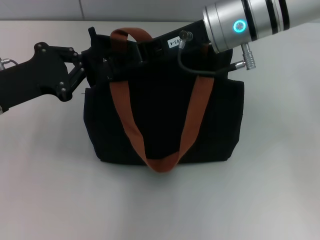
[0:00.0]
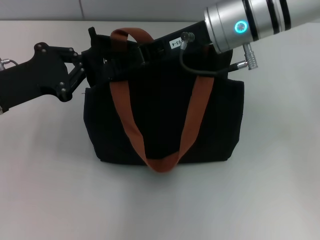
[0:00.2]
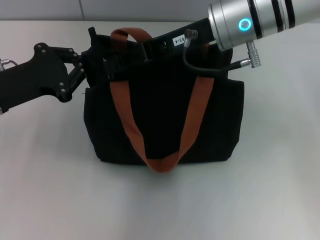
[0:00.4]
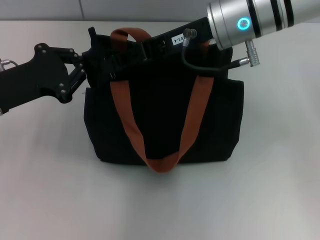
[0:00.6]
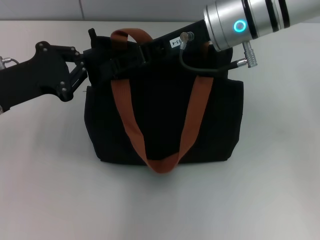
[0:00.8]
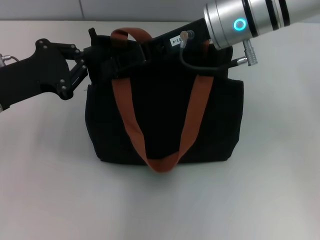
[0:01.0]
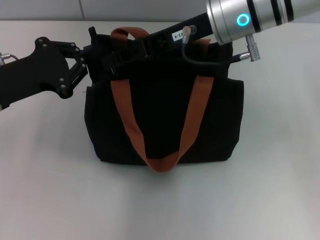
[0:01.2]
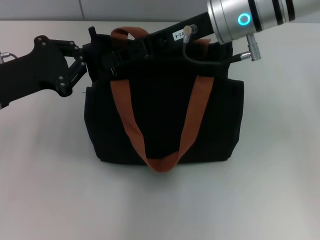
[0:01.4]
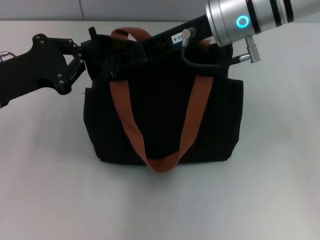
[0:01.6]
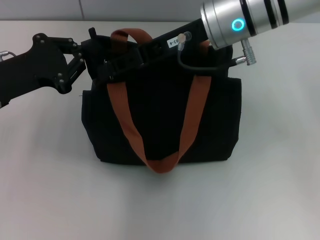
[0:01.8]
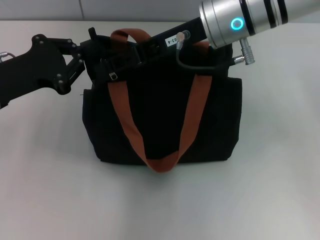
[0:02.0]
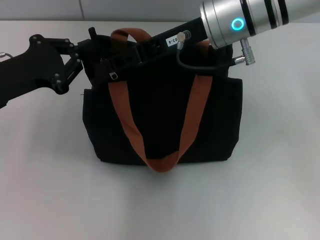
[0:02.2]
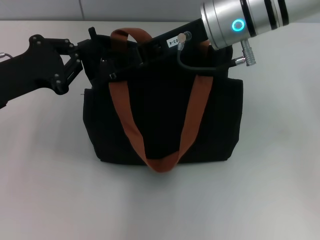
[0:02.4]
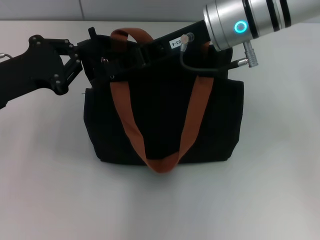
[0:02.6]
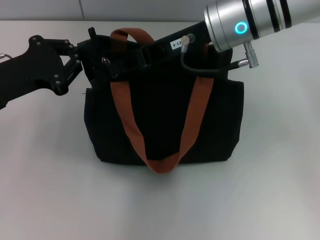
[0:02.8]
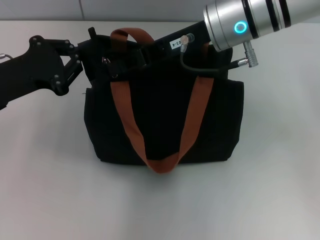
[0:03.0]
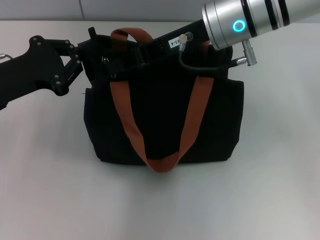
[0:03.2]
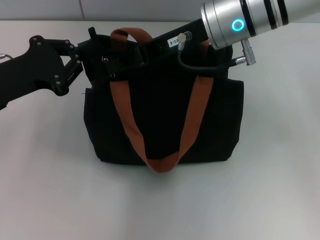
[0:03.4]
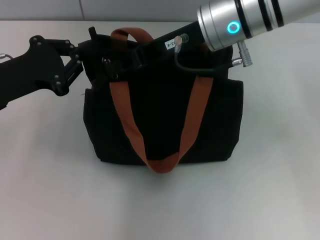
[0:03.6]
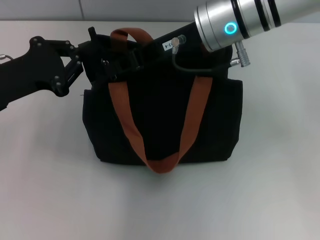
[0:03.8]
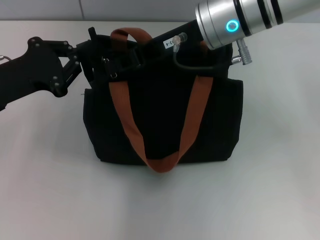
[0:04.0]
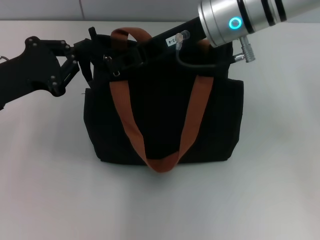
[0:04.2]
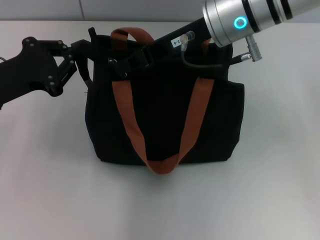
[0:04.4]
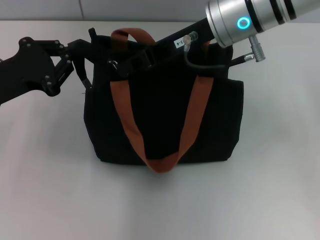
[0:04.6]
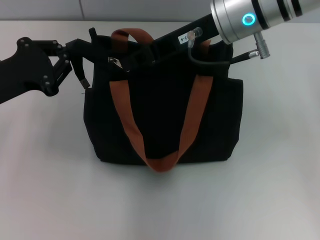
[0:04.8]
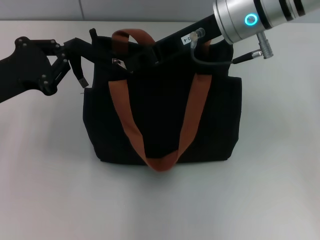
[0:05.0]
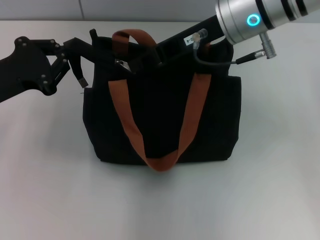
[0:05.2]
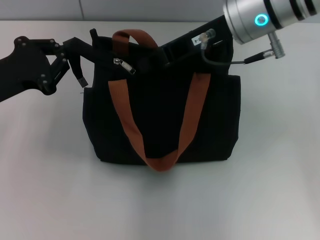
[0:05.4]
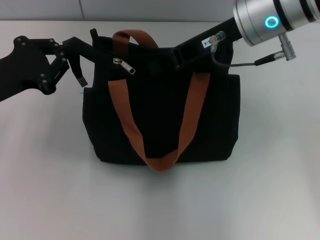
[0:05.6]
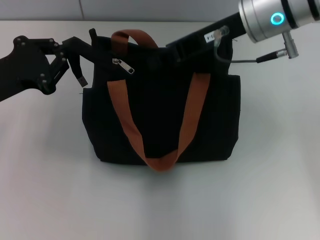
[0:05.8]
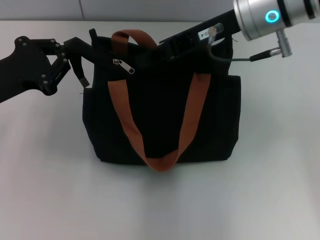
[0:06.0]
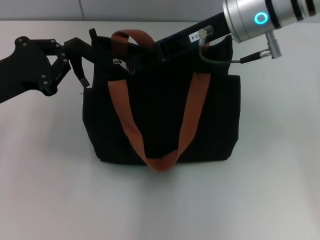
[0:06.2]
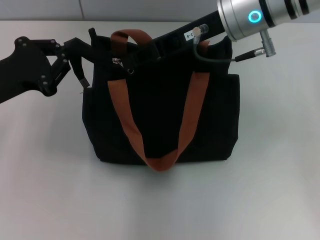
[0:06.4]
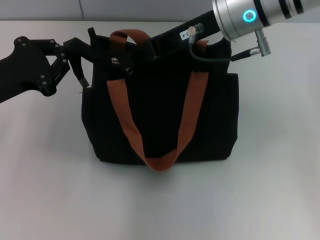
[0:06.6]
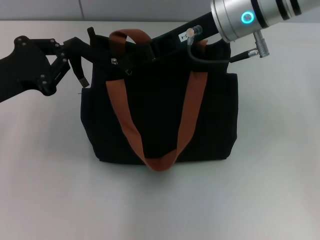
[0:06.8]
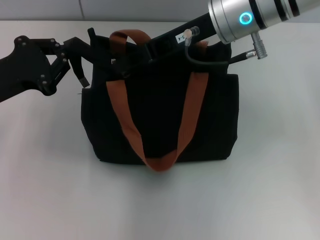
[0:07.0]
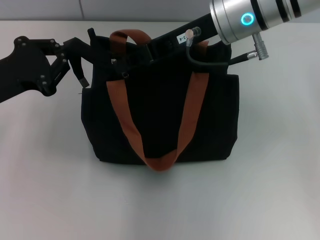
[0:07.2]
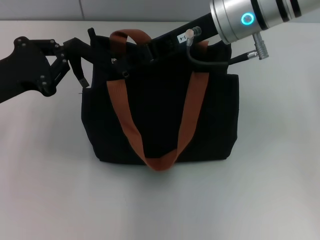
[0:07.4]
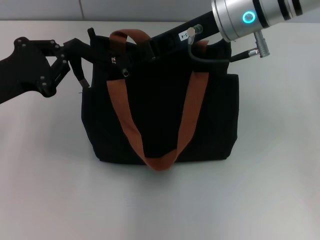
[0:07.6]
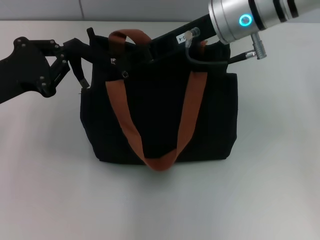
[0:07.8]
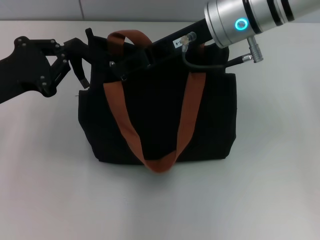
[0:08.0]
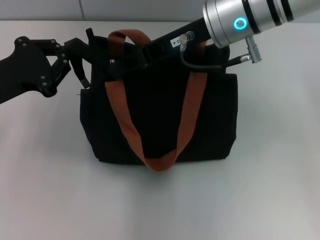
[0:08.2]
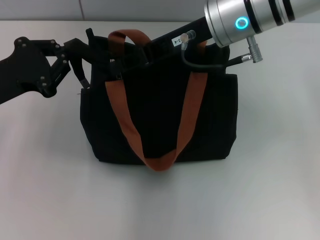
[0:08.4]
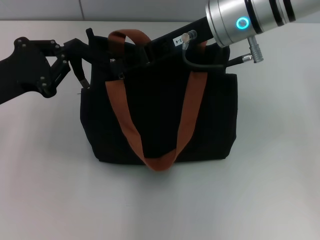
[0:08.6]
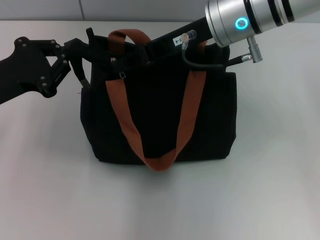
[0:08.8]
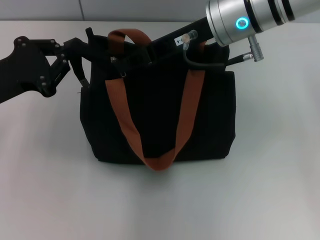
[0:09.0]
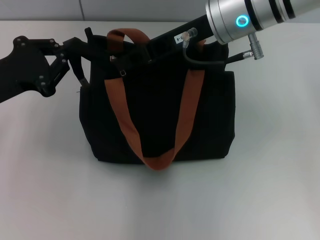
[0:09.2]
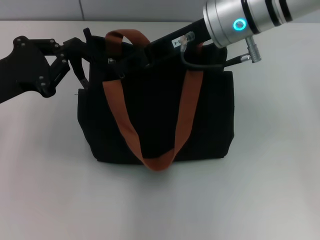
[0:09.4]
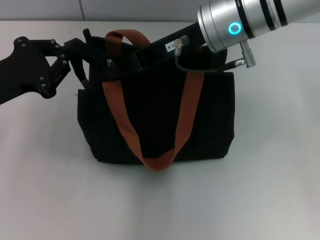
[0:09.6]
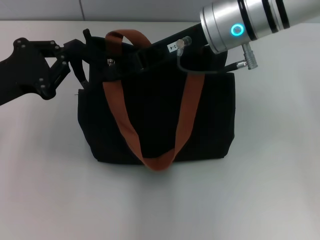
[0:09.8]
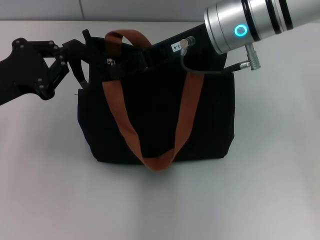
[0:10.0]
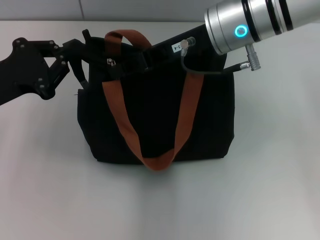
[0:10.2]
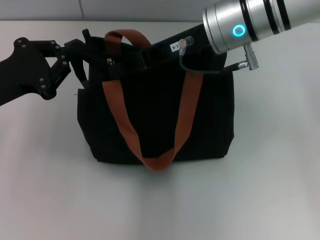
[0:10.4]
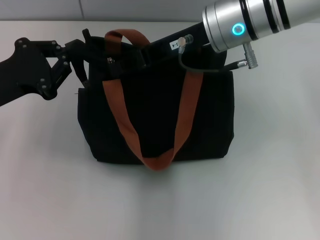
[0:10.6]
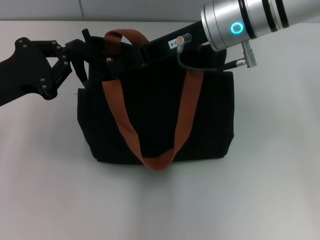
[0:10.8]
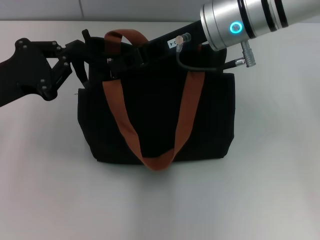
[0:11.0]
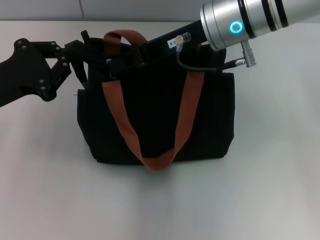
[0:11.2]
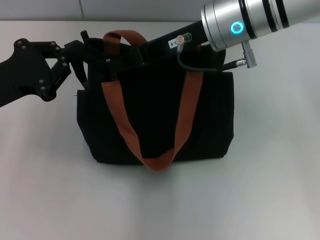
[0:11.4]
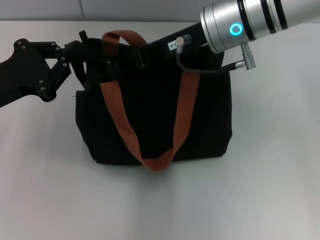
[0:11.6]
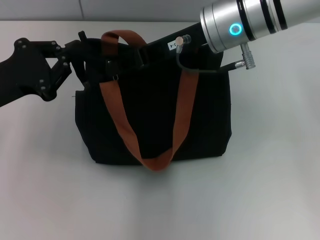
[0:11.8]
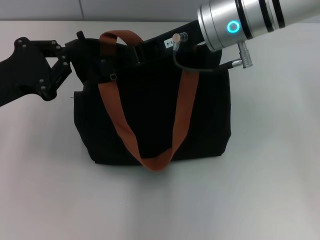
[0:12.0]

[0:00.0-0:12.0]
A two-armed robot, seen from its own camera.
0:00.0 to 0:01.6: The grippers make only small movements.
0:01.6 to 0:03.0: The right gripper closes.
0:03.0 to 0:07.6: The grippers make only small movements.
0:07.6 to 0:09.0: Neither gripper changes place.
0:09.0 to 0:10.4: The two grippers keep their place.
0:10.4 to 0:12.0: The two grippers keep their place.

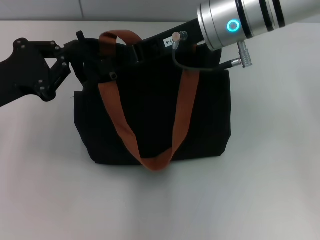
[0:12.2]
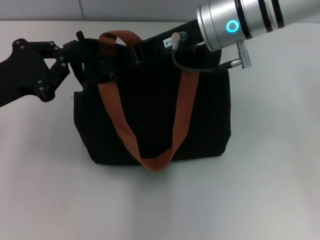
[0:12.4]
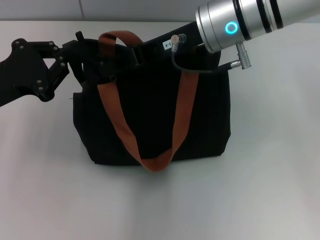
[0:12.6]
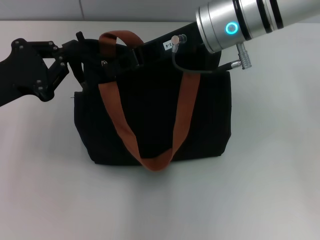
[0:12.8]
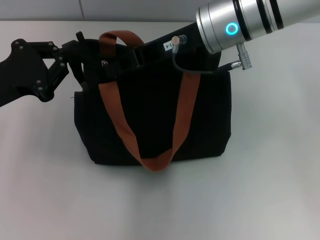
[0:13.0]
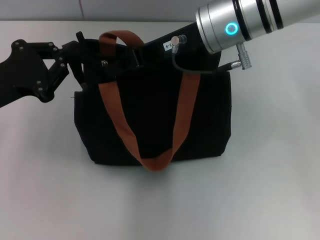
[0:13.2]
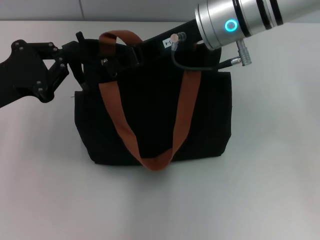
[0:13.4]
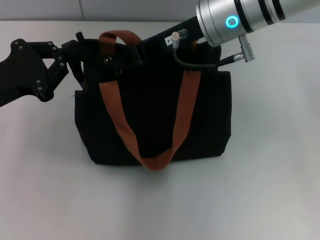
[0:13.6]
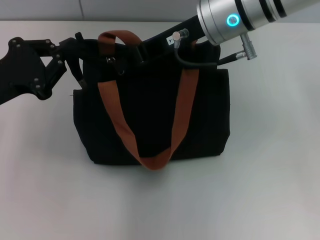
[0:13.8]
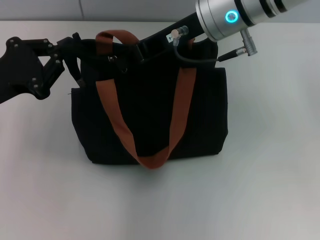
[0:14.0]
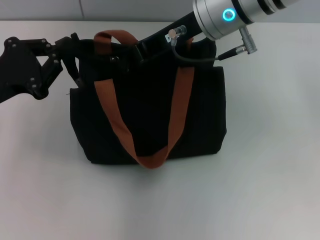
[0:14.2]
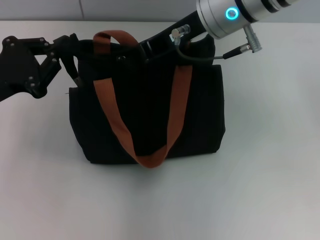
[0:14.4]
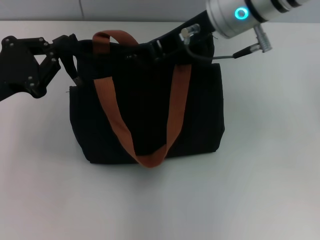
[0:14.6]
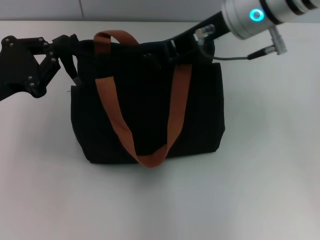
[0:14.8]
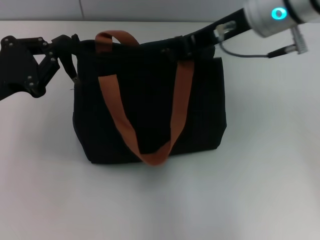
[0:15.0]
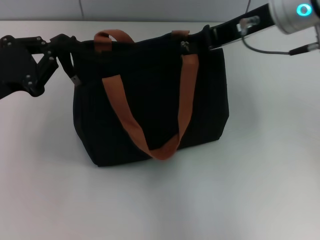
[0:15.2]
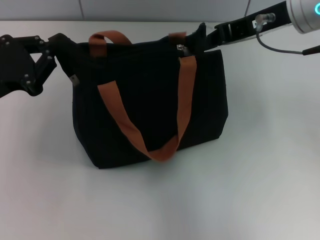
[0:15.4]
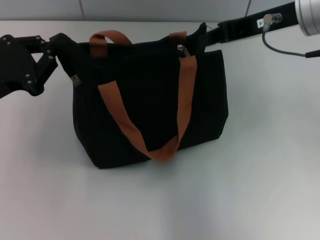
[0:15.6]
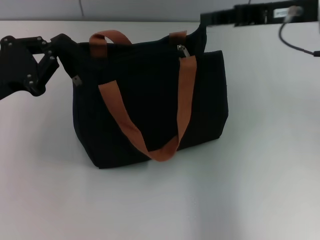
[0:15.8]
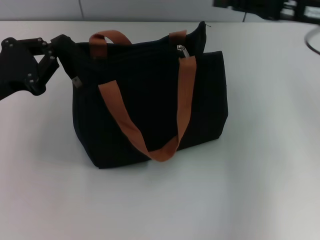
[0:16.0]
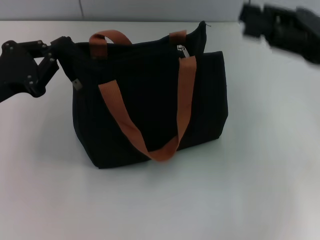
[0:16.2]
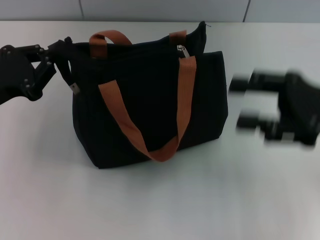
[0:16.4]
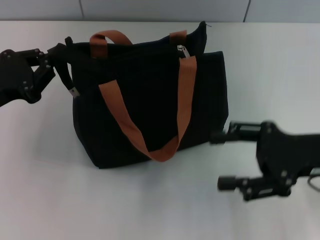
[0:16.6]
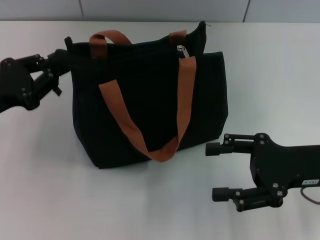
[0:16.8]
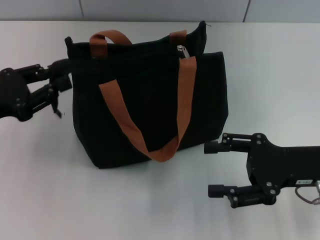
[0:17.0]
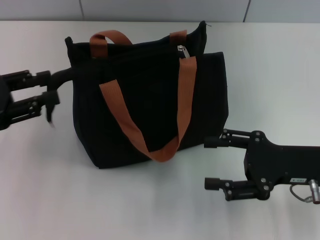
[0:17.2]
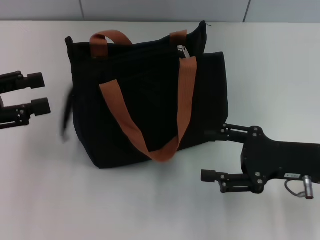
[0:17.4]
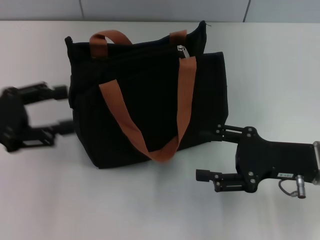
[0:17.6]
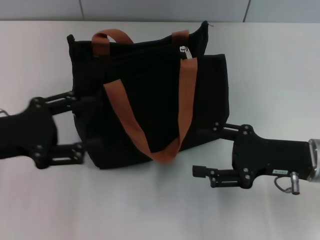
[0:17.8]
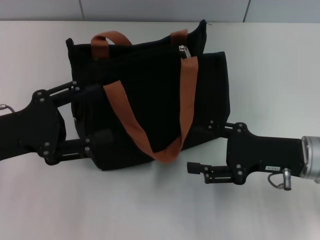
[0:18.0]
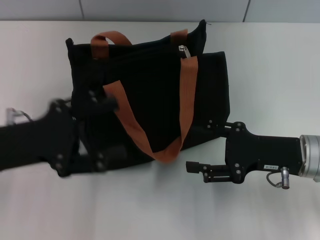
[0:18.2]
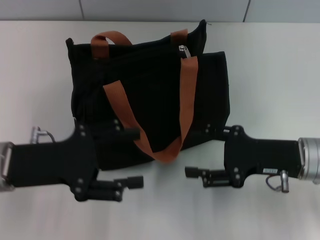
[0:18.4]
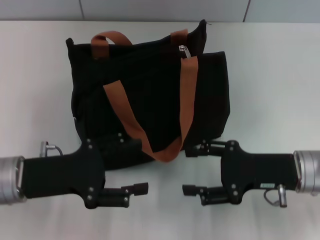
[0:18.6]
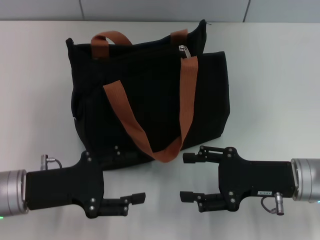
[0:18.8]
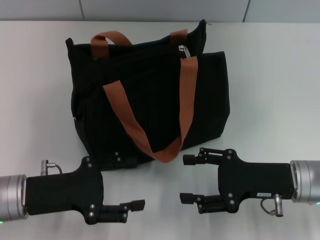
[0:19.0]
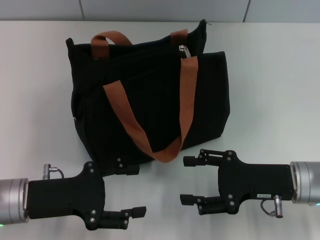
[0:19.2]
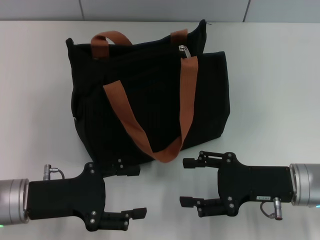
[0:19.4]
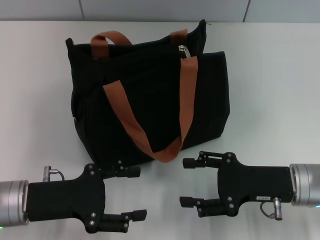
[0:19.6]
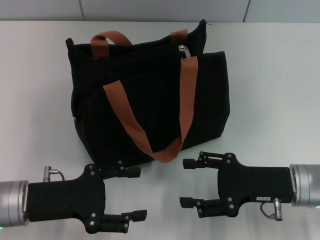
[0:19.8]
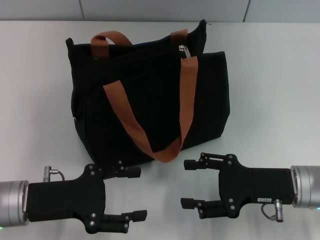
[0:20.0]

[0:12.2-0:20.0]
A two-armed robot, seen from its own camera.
Step, 0:12.2 to 0:15.8: Pull up the zipper with your right hand.
Step, 0:16.0 to 0:17.2: Grab the zipper with your left hand.
0:12.2 to 0:13.8: The right gripper closes its fingers.
0:13.8 to 0:15.4: The right gripper shifts about 10 cm to the right.
0:15.4 to 0:16.8: The right gripper heads downward, backward and to the right, covering approximately 20 cm, and opens.
0:16.8 to 0:18.4: The left gripper goes approximately 5 cm to the right, and opens up.
0:18.4 to 0:20.0: The left gripper goes approximately 5 cm downward.
